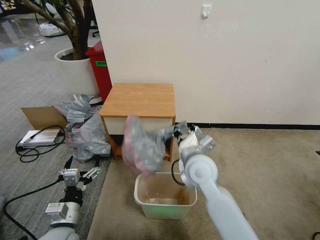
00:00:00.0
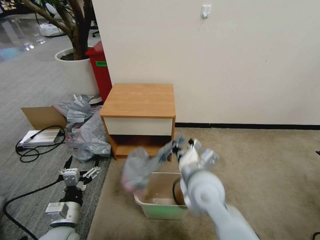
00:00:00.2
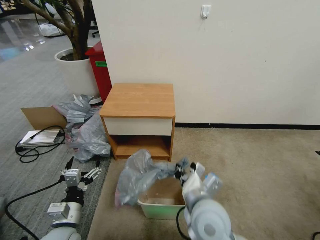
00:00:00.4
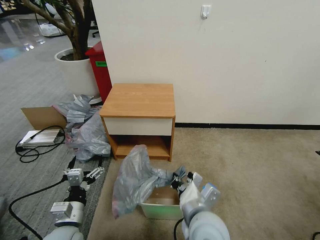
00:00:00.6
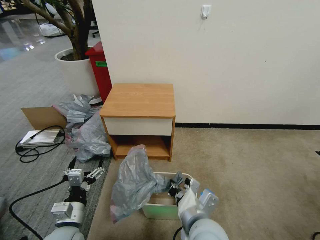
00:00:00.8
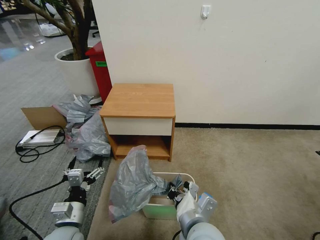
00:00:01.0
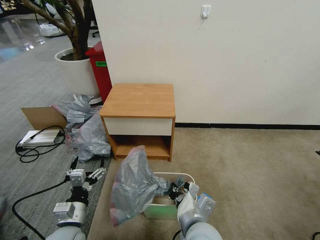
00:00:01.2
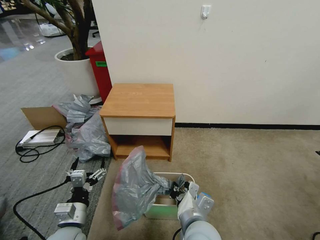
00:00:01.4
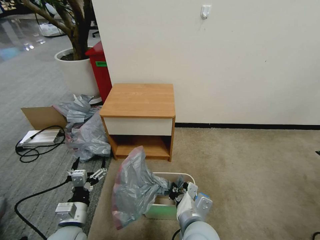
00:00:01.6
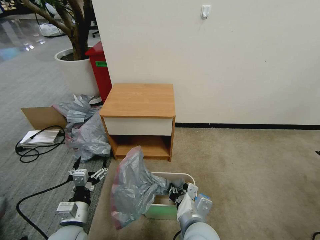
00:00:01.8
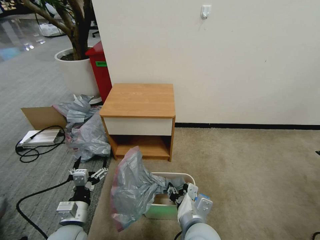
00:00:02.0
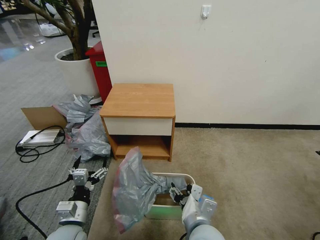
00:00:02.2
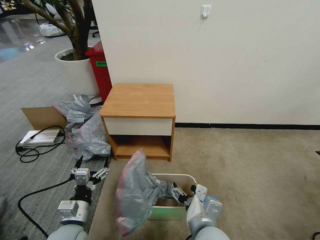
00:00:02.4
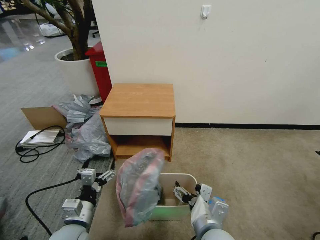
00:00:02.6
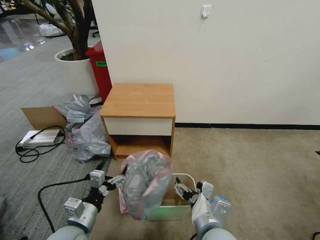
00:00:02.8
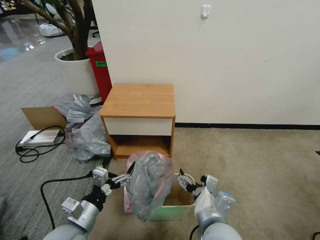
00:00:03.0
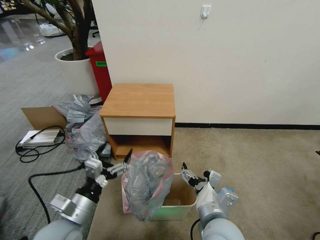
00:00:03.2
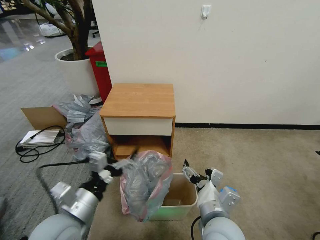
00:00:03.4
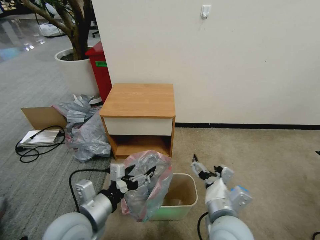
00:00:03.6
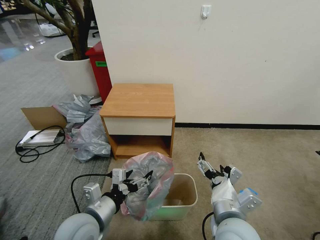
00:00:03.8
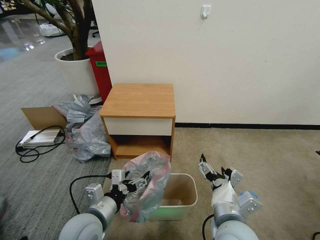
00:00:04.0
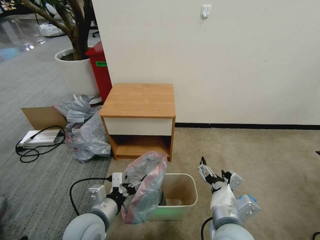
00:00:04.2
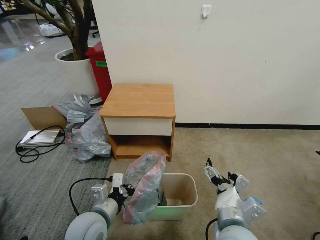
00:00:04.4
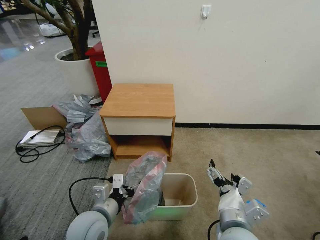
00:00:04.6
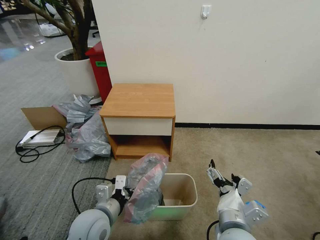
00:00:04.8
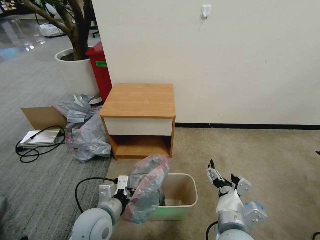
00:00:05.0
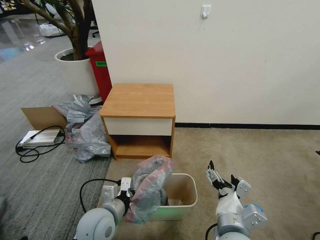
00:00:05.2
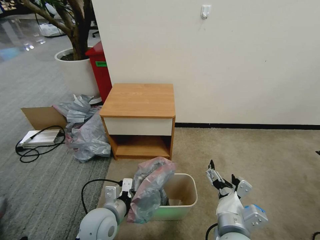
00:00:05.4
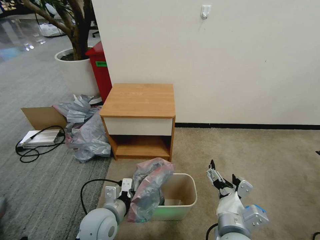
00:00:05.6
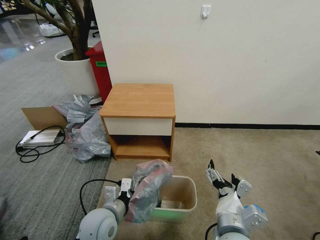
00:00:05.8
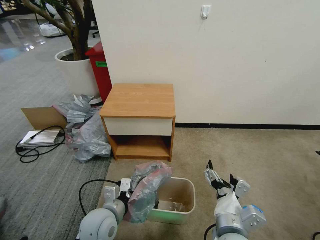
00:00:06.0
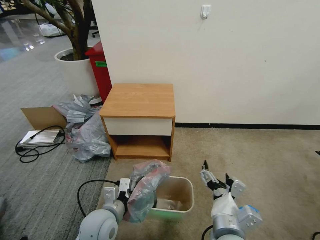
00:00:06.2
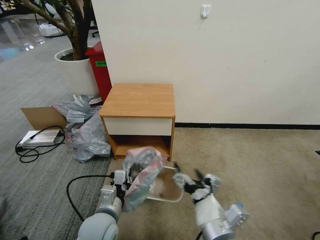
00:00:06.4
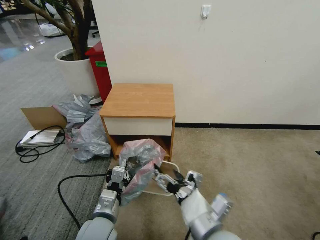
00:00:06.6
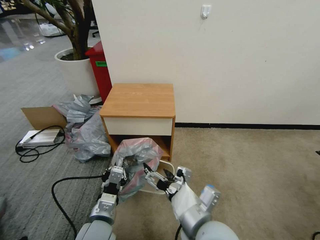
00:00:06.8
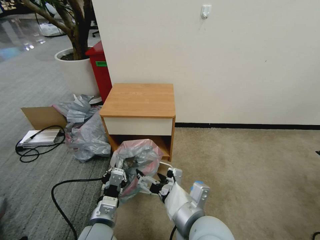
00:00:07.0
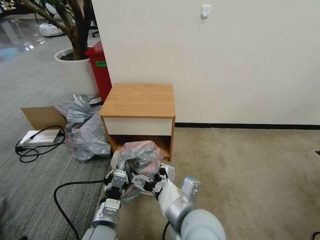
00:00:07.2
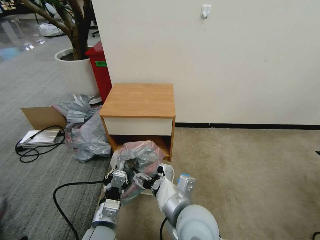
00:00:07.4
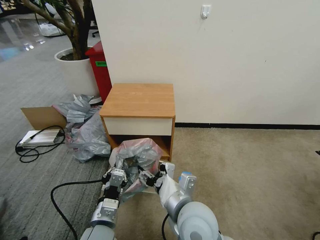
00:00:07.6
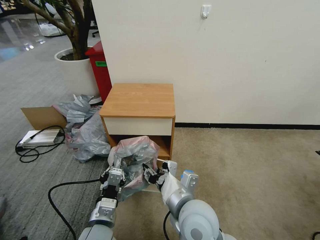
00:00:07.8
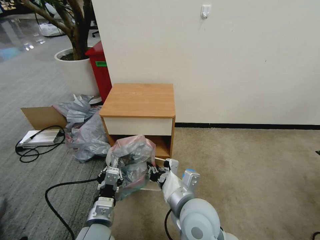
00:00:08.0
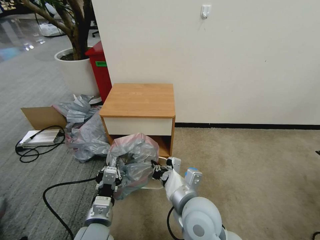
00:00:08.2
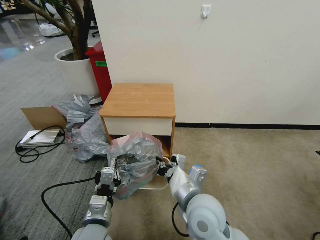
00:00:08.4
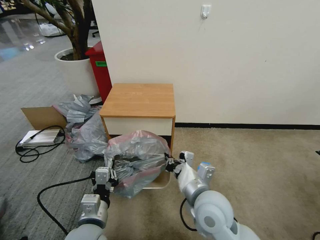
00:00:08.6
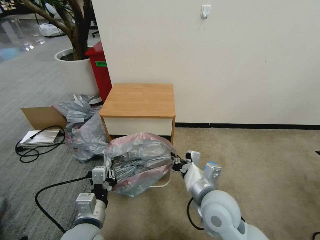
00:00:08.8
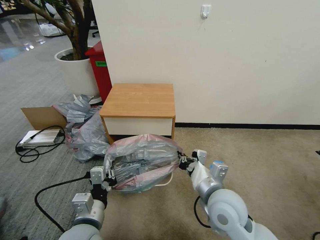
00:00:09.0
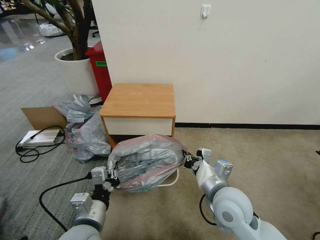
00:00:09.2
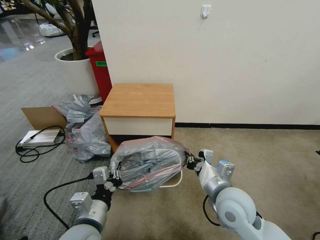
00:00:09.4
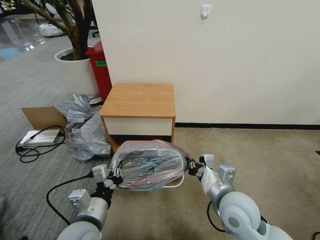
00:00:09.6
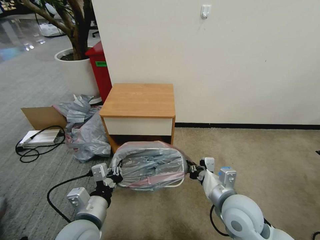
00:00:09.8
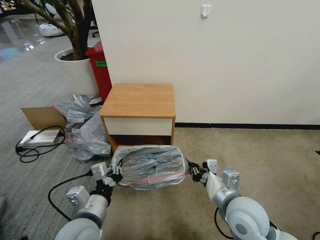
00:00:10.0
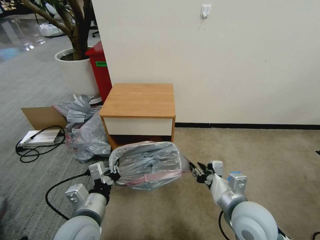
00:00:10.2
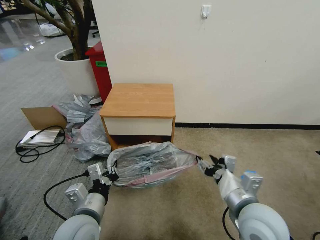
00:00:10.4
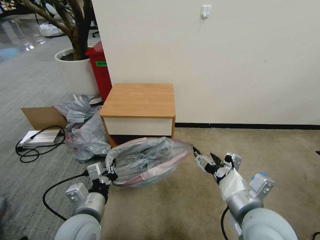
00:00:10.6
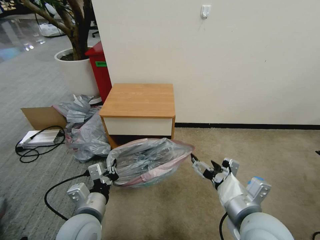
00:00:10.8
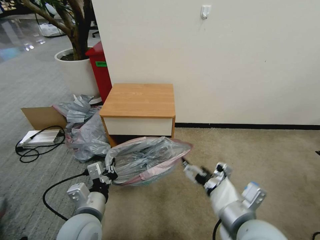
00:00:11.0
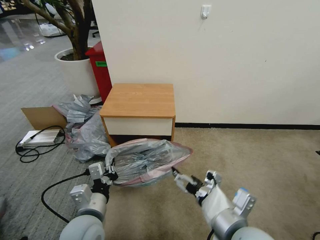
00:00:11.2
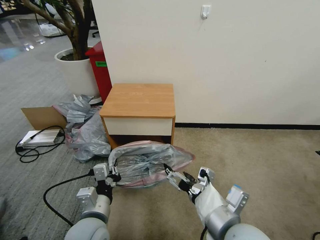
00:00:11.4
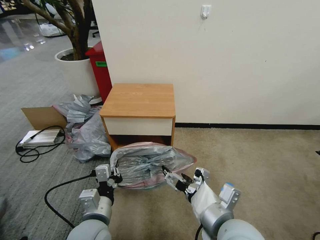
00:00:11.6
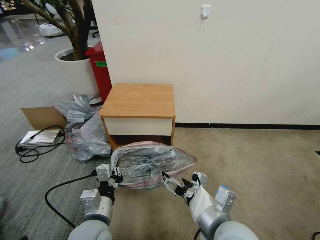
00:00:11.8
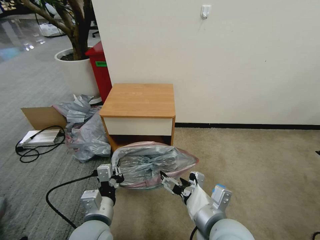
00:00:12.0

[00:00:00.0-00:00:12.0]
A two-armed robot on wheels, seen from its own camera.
Task of the whole recording: Pick up the garbage bag from the table and place it over the trash can.
00:00:00.0 to 00:00:01.6: The right gripper moves backward and downward, some 20 cm.
00:00:01.6 to 00:00:03.0: The left gripper travels upward by about 5 cm, while the right gripper changes place by approximately 5 cm, and opens its fingers.
00:00:03.0 to 00:00:04.4: The left gripper goes some 5 cm to the right.
00:00:04.4 to 00:00:06.0: The left gripper closes up.
00:00:06.0 to 00:00:07.6: The right gripper shifts roughly 10 cm to the left and forward, and closes up.
00:00:07.6 to 00:00:09.0: The right gripper shifts approximately 10 cm to the right, and closes. Meanwhile the left gripper changes place by about 5 cm.
00:00:09.0 to 00:00:10.4: The right gripper is displaced to the right by some 5 cm, and opens up.
00:00:10.4 to 00:00:12.0: The right gripper heads to the left, covering about 10 cm, and opens.

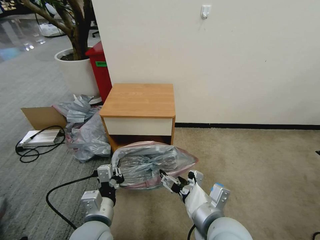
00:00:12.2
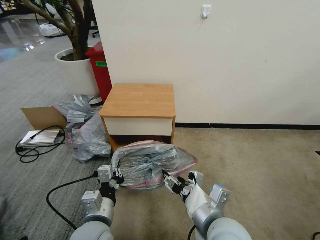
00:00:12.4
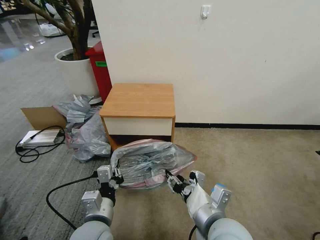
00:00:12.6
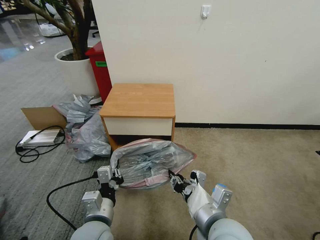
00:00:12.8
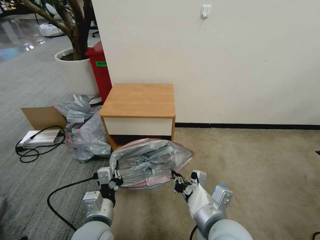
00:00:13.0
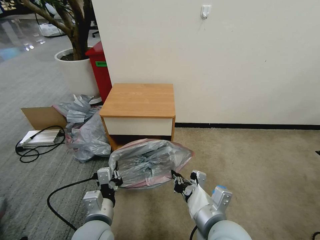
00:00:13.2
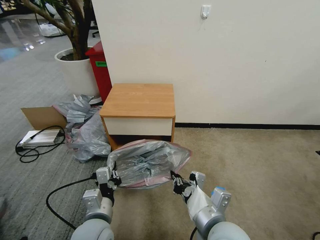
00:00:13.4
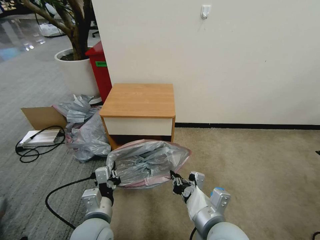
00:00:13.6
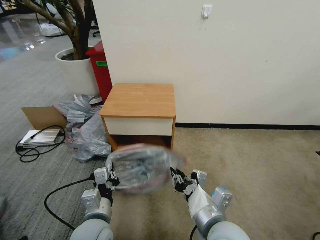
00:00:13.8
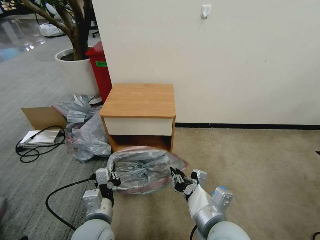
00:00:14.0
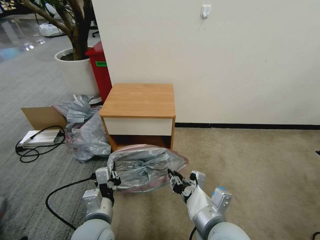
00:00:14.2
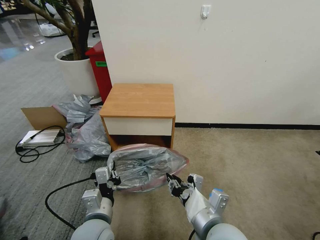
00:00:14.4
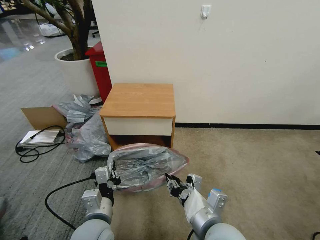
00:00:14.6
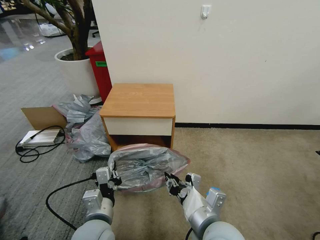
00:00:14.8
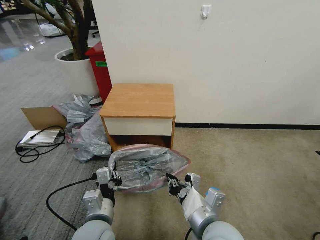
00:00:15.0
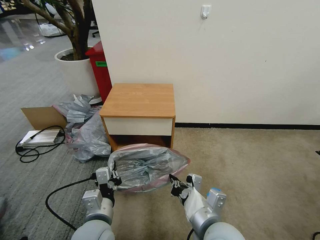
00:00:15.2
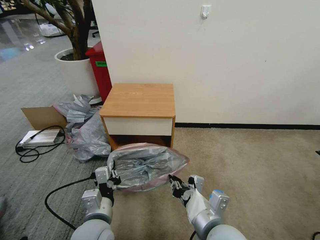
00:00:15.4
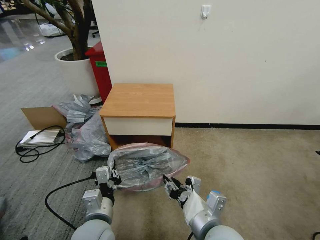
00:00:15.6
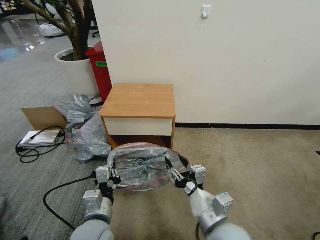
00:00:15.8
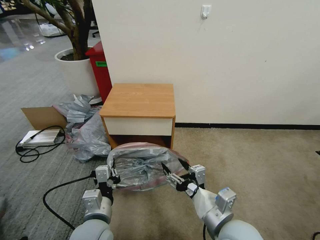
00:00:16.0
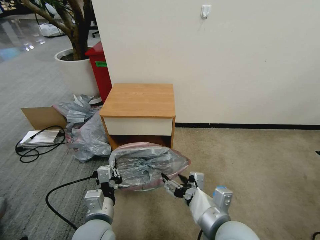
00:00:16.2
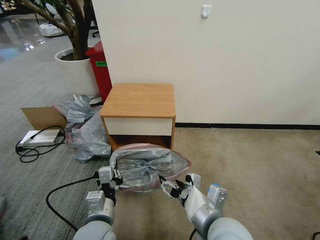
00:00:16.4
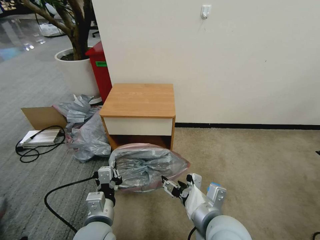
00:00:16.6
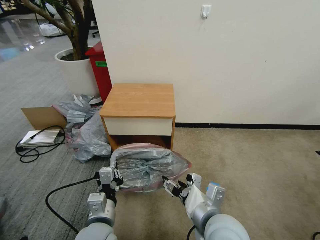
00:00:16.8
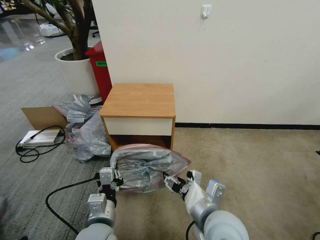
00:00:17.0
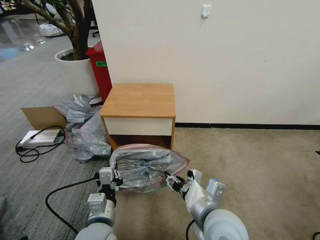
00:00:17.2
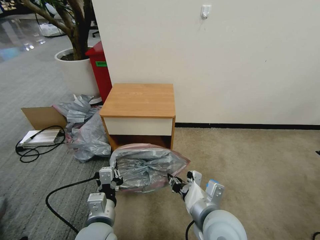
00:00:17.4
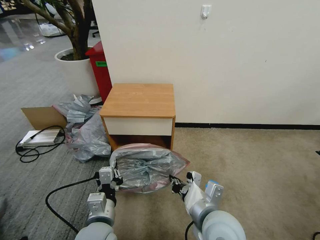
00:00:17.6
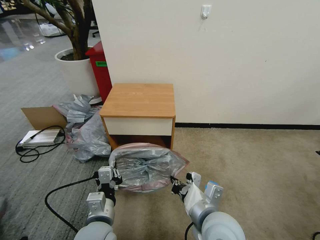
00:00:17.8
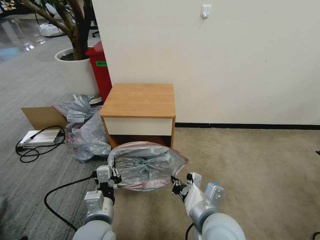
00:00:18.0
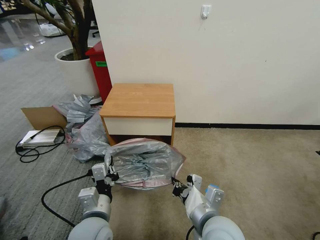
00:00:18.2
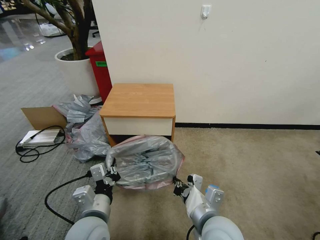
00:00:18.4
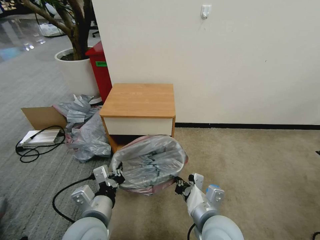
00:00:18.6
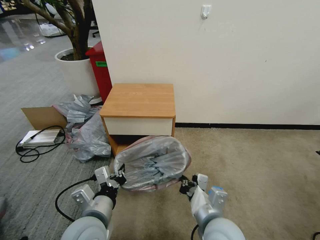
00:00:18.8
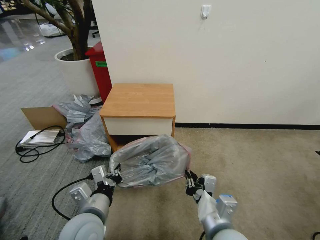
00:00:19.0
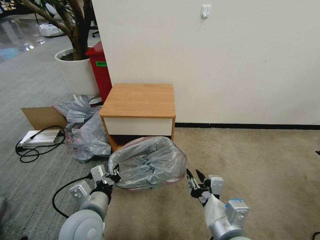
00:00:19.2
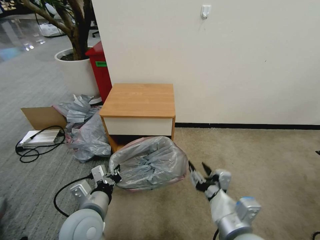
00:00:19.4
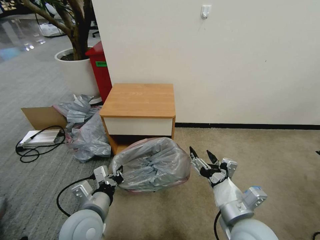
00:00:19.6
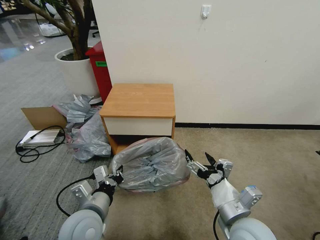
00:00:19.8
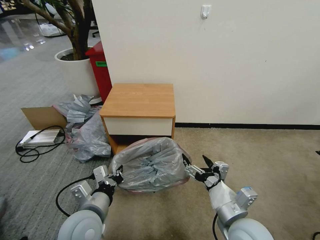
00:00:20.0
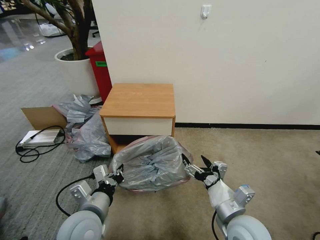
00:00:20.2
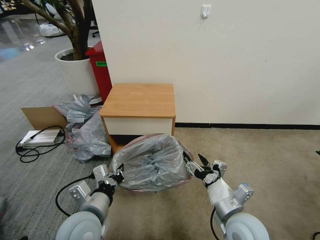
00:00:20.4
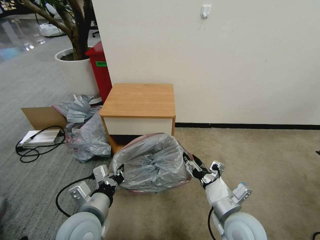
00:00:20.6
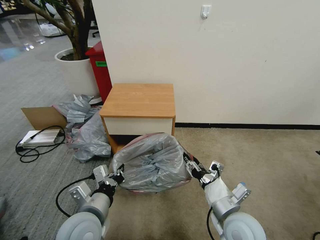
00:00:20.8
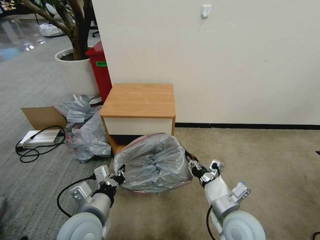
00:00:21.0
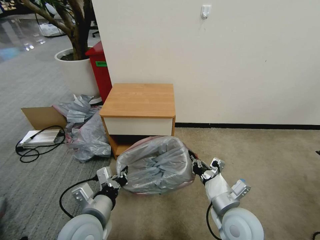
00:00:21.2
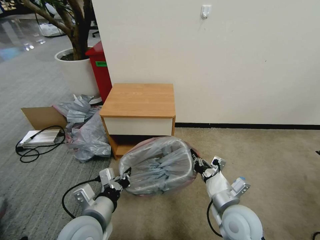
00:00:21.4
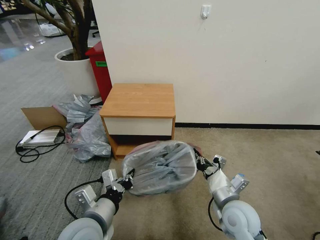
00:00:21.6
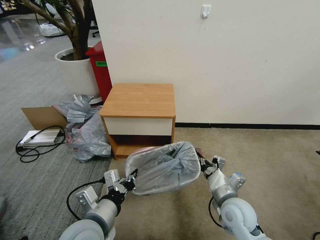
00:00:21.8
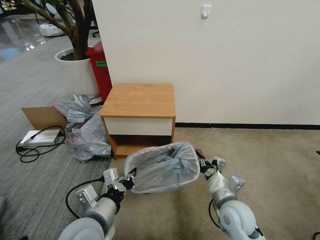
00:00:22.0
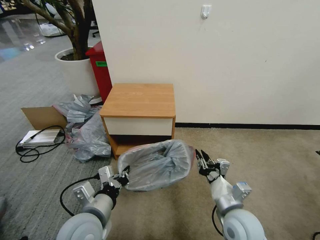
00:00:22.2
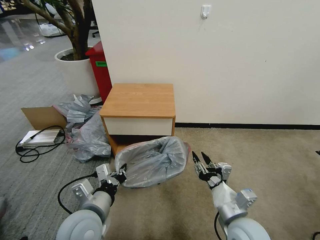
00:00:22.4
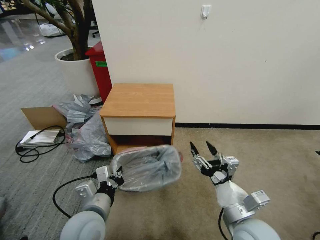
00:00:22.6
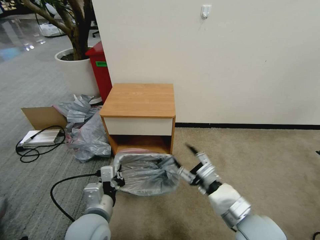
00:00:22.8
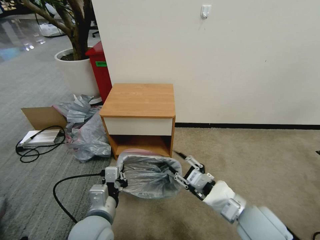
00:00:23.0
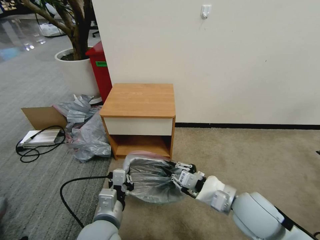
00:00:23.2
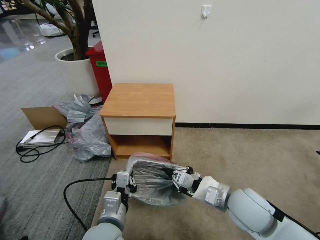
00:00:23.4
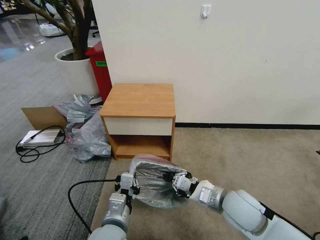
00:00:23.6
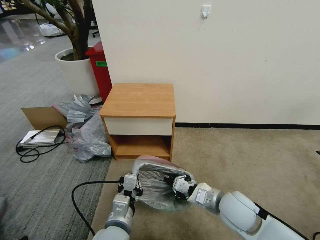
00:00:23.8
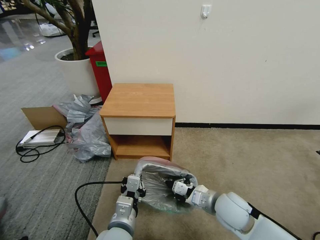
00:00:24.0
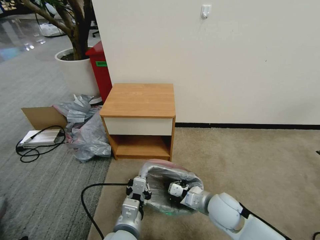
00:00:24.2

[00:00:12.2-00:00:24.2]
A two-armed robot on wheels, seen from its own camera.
Task of the whole recording: Pick up the garbage bag from the table and place it over the trash can.
00:00:12.2 to 00:00:13.8: The right gripper closes up.
00:00:13.8 to 00:00:15.2: There are only small adjustments of the grippers.
00:00:15.2 to 00:00:16.6: The right gripper opens.
00:00:16.6 to 00:00:18.2: The right gripper closes.
00:00:18.2 to 00:00:19.8: The right gripper goes about 5 cm to the right, and opens.
00:00:19.8 to 00:00:21.2: The right gripper closes.
00:00:21.2 to 00:00:22.6: The right gripper opens.
00:00:22.6 to 00:00:24.2: The right gripper heads forward and downward, covering about 10 cm, and closes. The left gripper heads to the right, covering approximately 10 cm.
